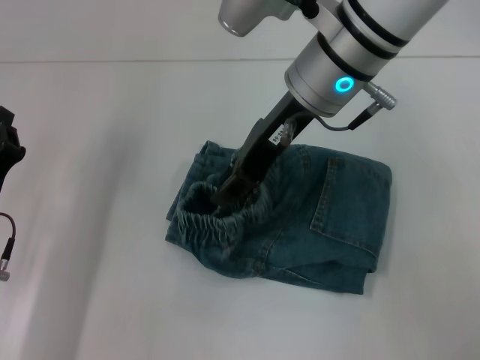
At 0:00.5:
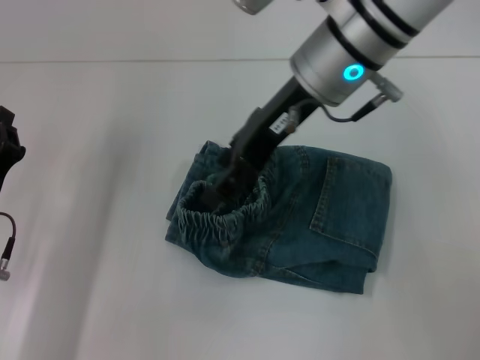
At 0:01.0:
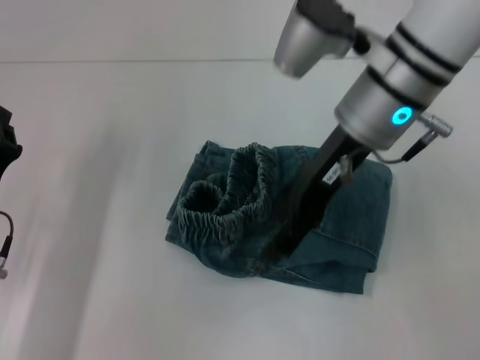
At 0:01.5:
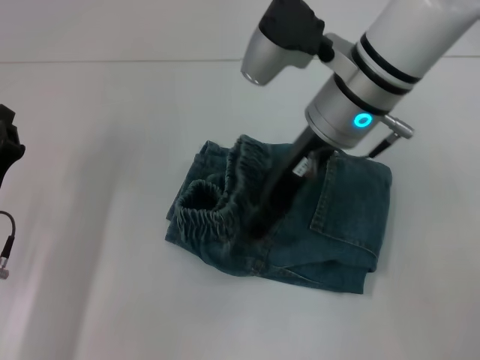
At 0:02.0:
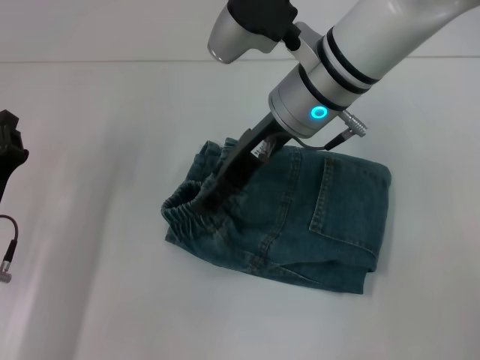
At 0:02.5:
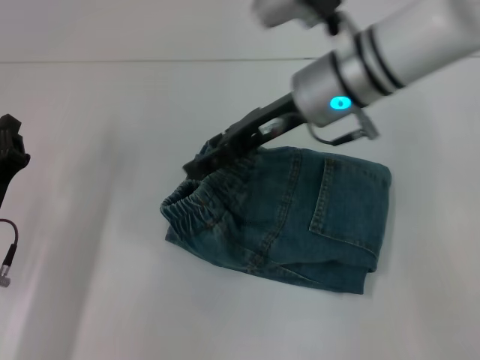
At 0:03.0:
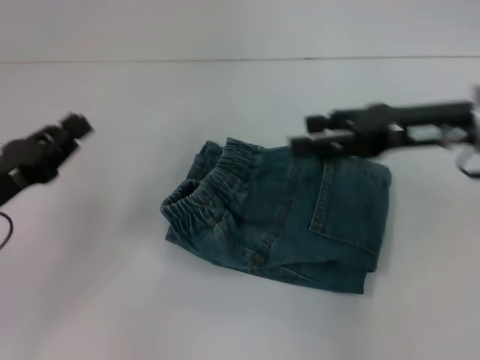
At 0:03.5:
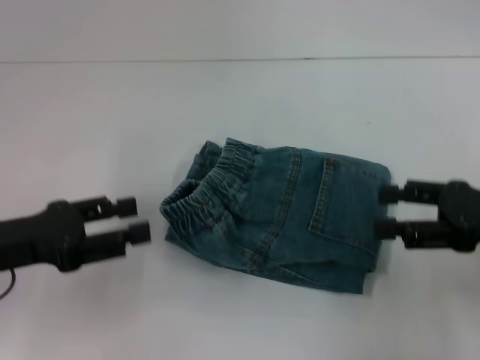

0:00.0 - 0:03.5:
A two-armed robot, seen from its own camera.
Step, 0:00.0 - 0:02.0: Fold to the left with your right hand.
0:00.0 - 0:02.0: The right gripper opens.
0:02.0 - 0:03.5: The left gripper travels upward by about 10 cm, and opens up; the right gripper is displaced to the right and backward by approximately 30 cm.

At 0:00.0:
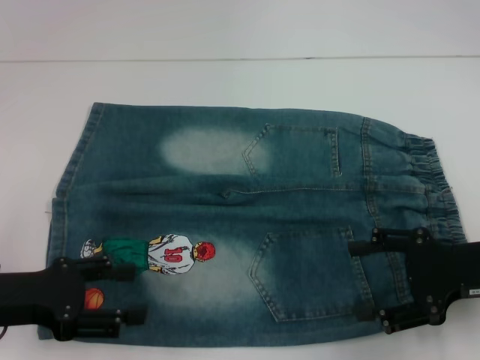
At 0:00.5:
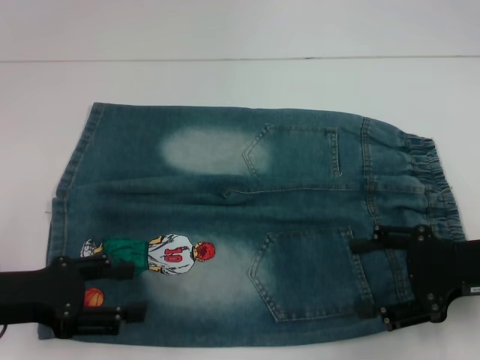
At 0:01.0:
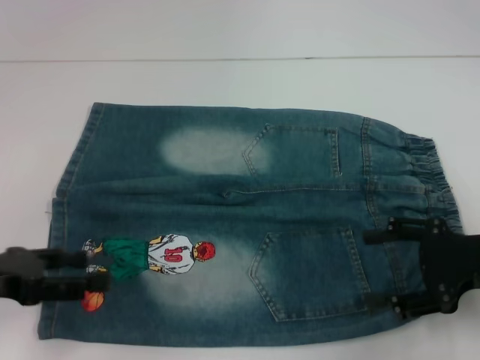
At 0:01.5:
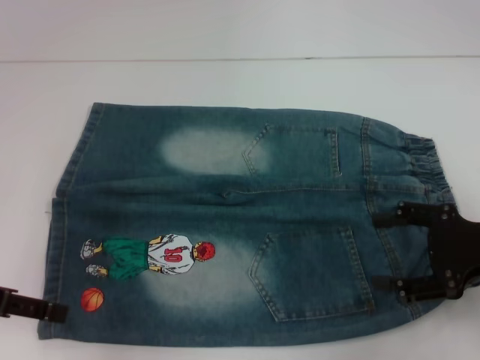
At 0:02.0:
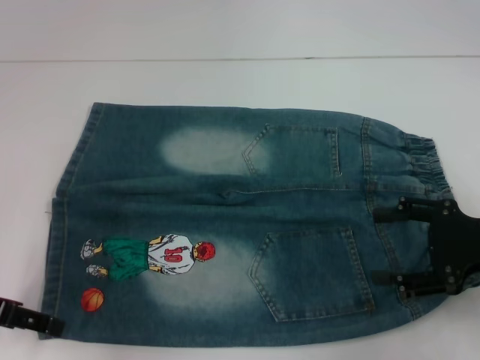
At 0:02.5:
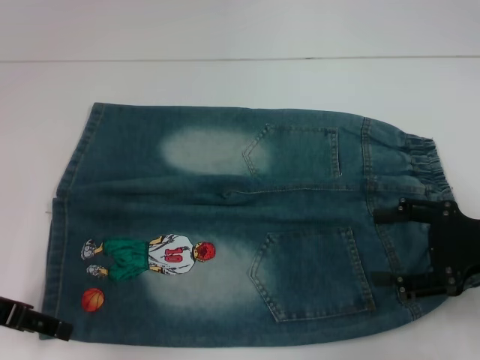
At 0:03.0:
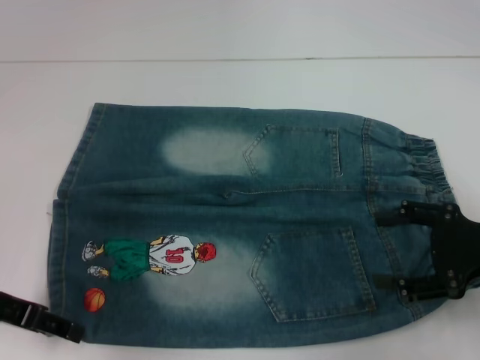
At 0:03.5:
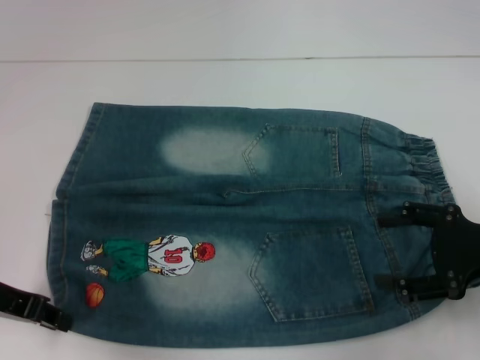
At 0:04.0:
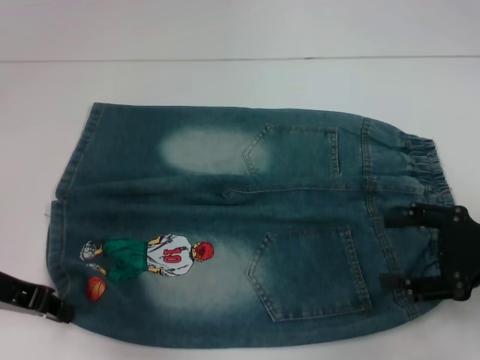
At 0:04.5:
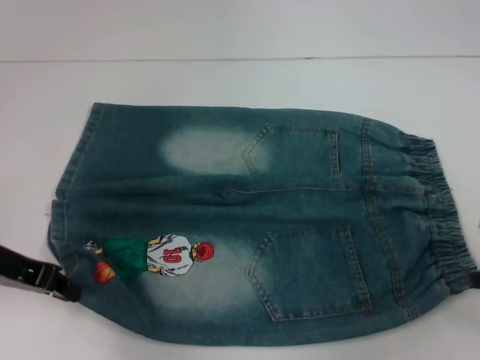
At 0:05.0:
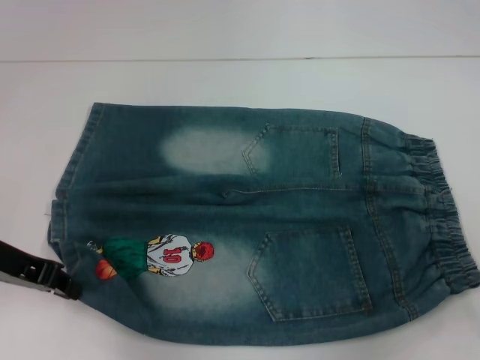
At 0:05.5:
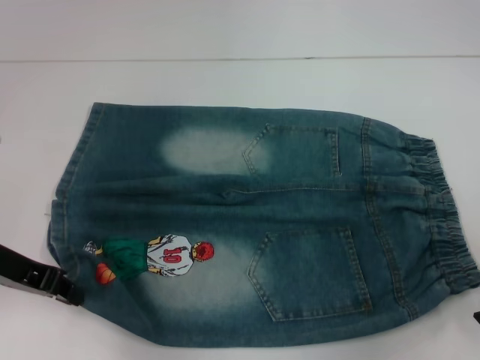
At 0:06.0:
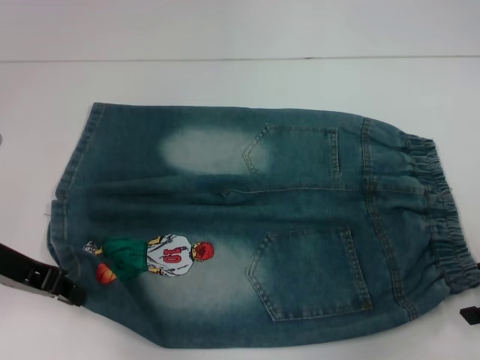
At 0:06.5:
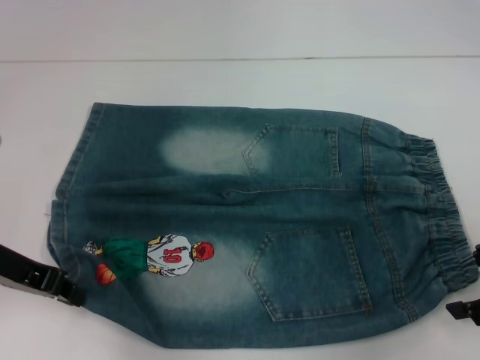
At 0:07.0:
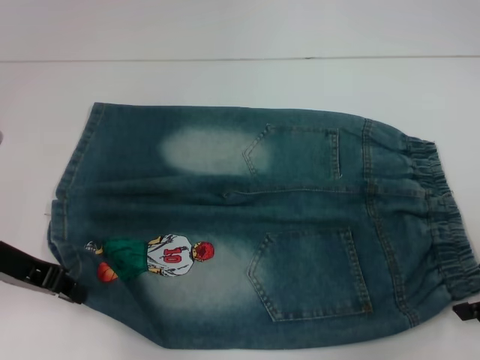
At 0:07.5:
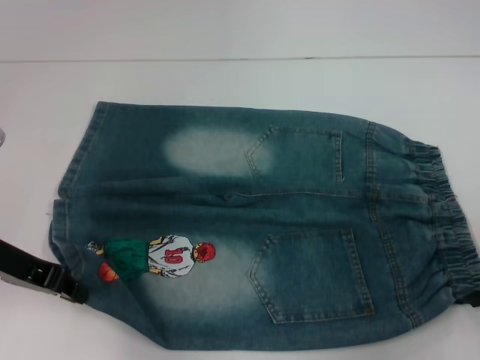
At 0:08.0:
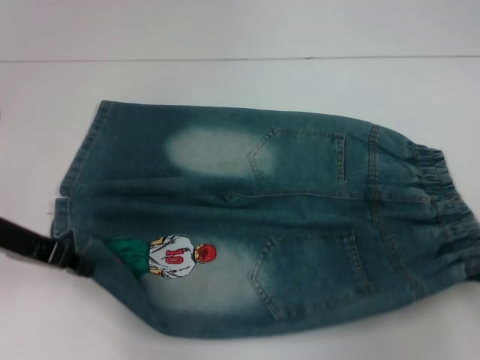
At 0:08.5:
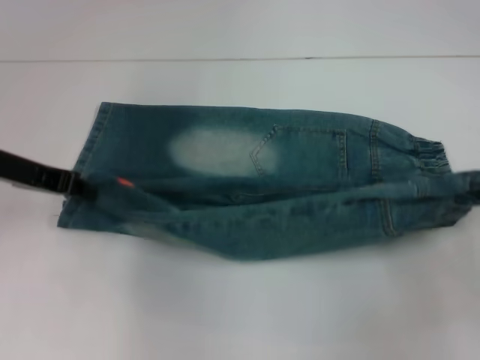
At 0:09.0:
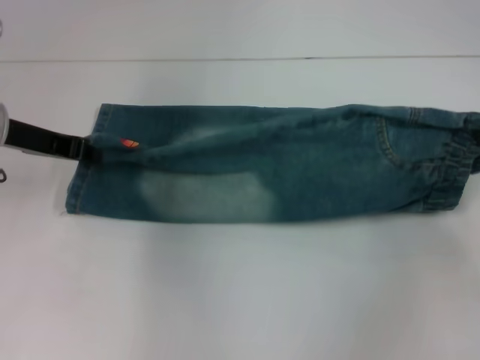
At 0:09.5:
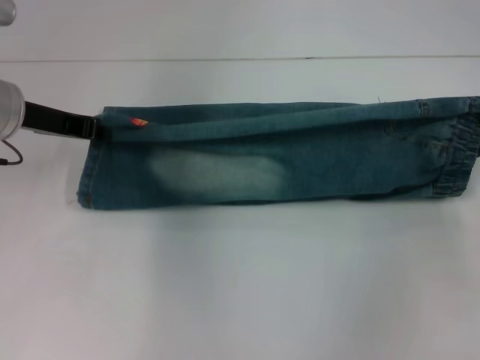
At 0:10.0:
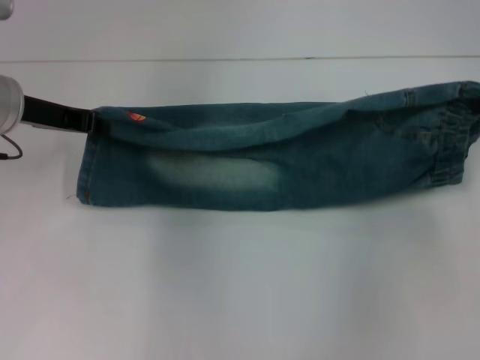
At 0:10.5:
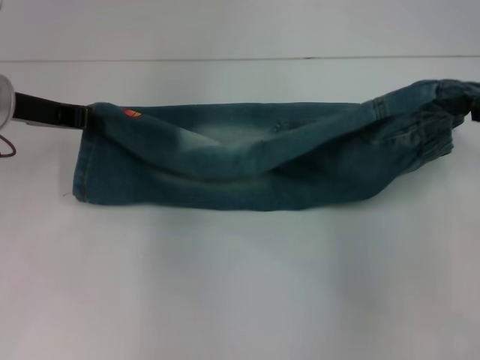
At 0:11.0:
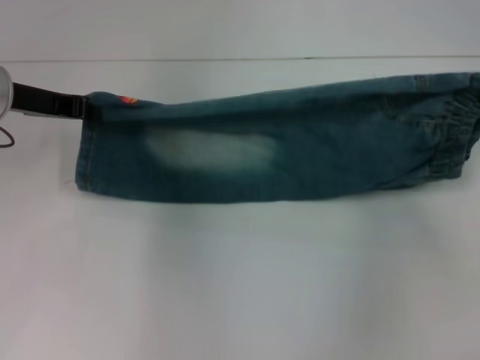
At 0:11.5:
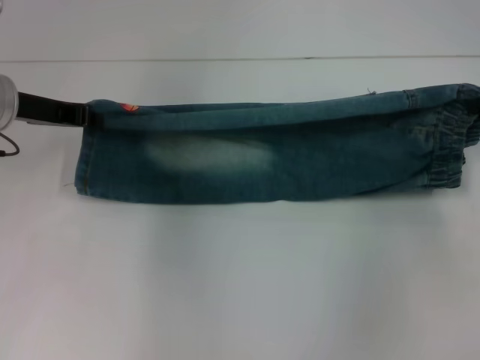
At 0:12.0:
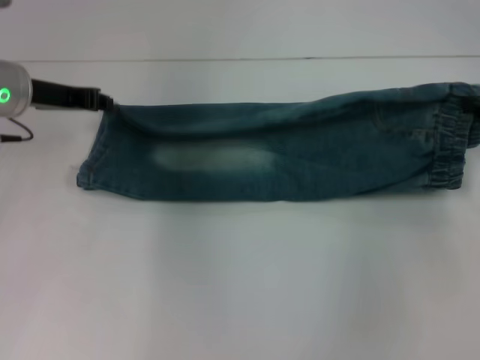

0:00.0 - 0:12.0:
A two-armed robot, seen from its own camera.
Step, 0:00.0 - 0:03.0: Grab the lower left pant leg with your left hand.
Step, 0:03.5 - 0:07.0: Hold the lower right waistband with your right hand.
0:02.0 - 0:04.0: The left gripper closes its fingers.
0:06.0 - 0:08.0: The right gripper closes up.
0:08.0 - 0:10.0: The grippers both shift forward by approximately 10 cm.
0:10.0 - 0:12.0: The grippers stay close to where they were, moving slightly.

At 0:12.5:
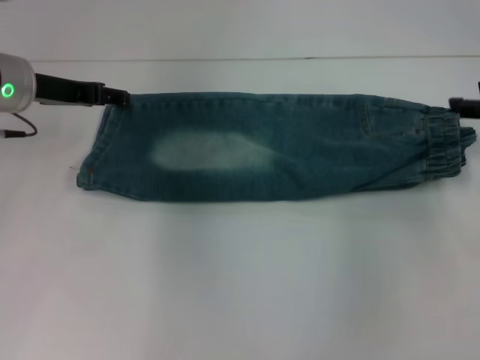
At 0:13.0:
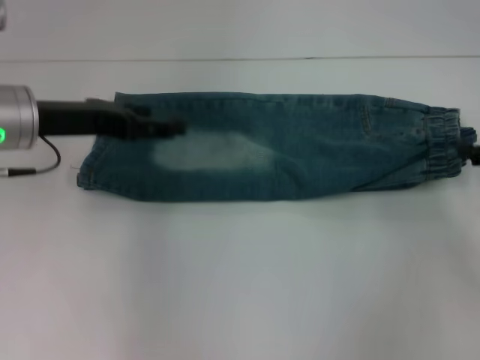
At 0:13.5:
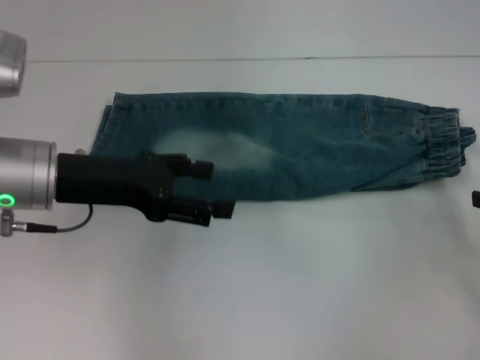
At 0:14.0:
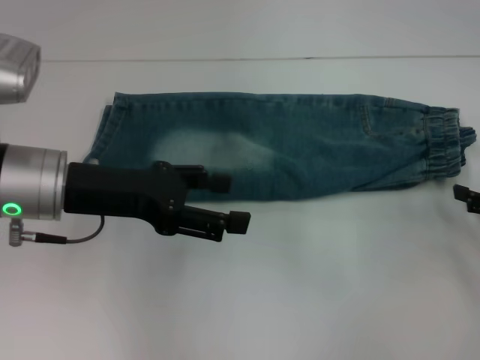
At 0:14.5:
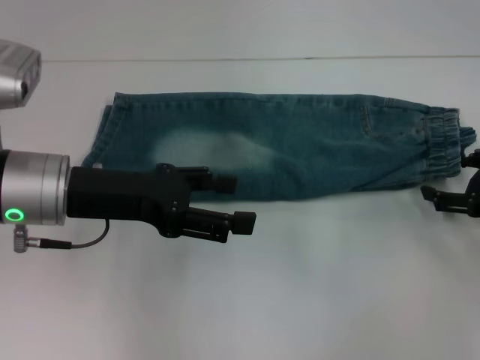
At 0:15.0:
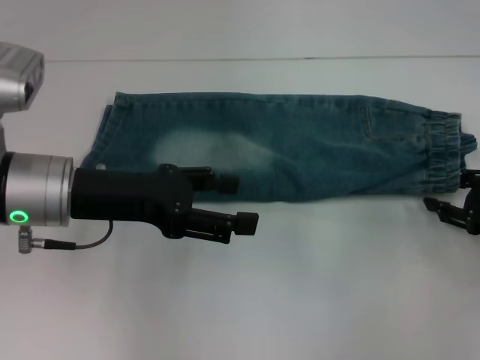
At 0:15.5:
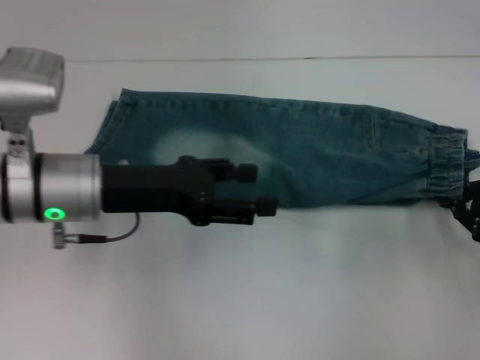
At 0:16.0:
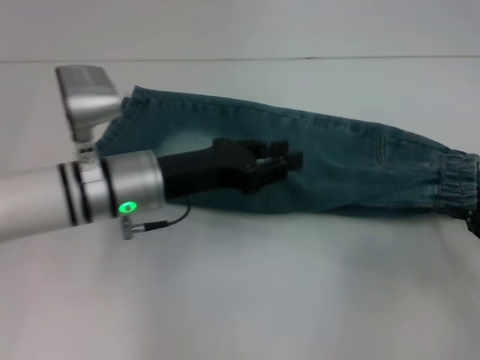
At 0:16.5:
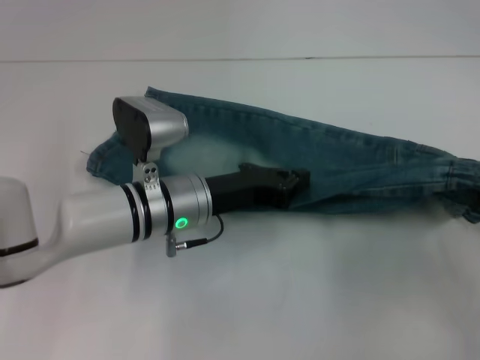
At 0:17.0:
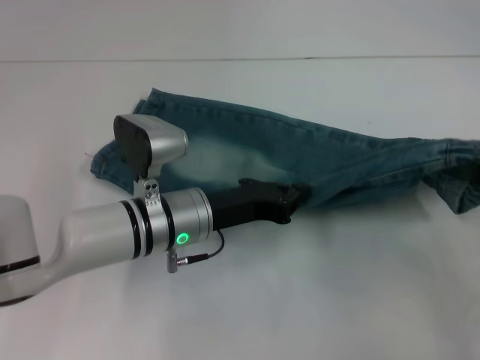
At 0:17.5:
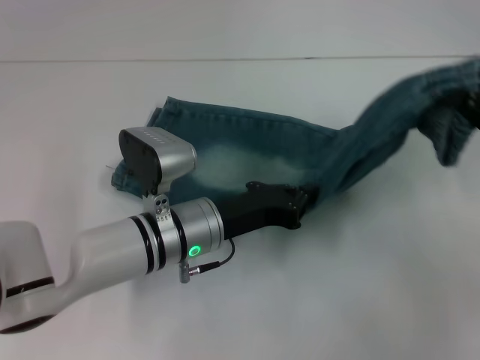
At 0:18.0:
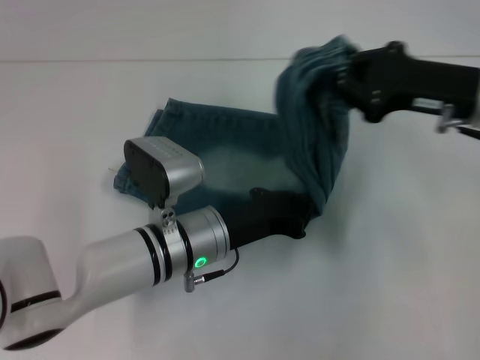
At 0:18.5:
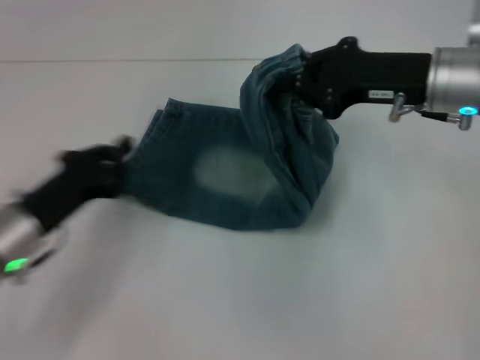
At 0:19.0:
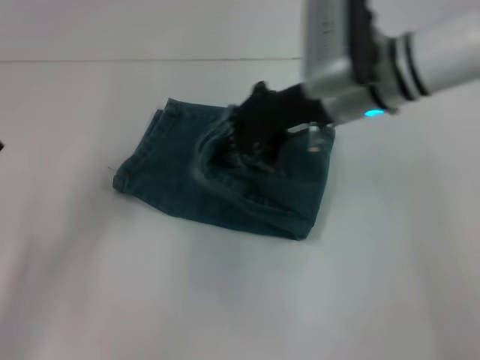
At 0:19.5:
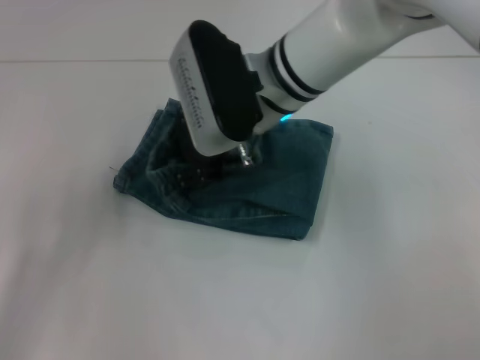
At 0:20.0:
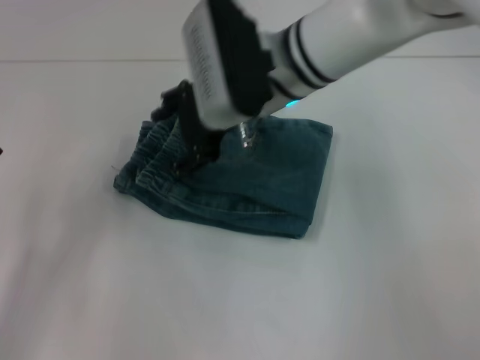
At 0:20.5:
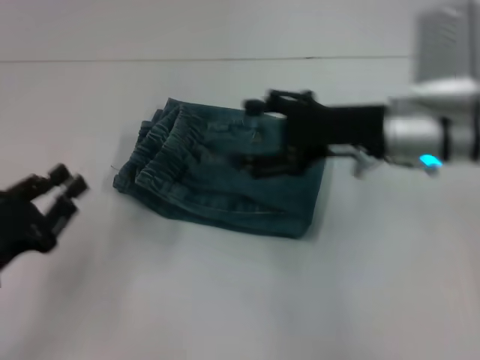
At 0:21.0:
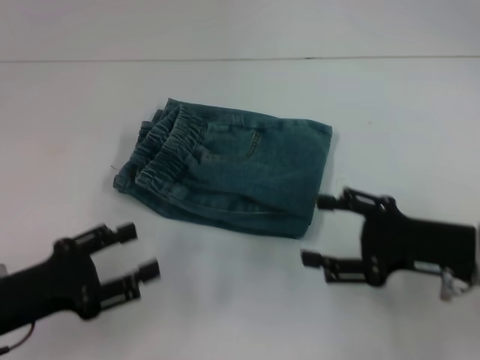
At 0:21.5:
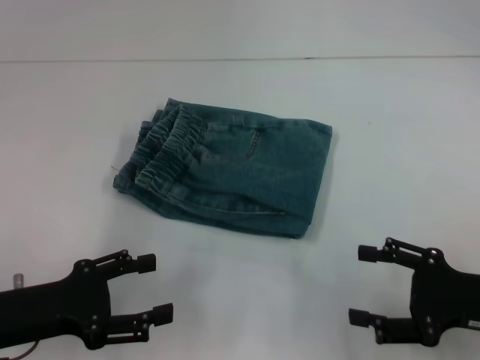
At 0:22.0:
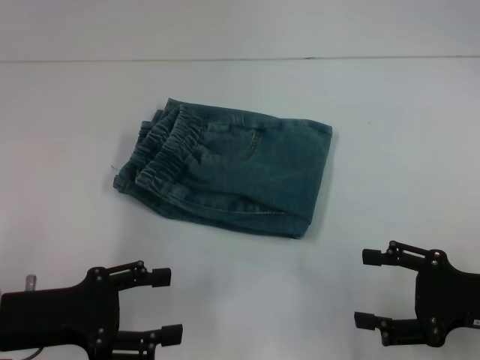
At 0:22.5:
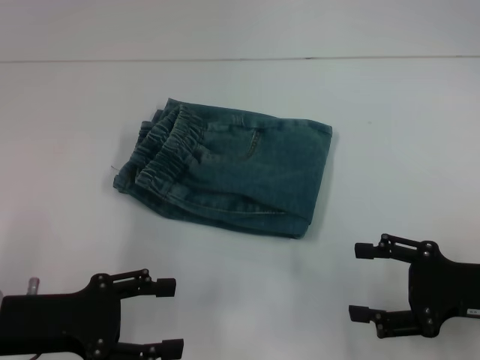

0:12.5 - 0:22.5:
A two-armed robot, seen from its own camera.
Step, 0:12.5 - 0:15.0: Grab the waistband with your right hand.
Step, 0:16.0 - 0:18.0: Press the middle of the pants with your left hand.
Step, 0:18.5 - 0:20.0: Fold to the left with your right hand.
0:12.5 - 0:14.5: The right gripper moves downward and backward, about 10 cm, and opens up, while the left gripper goes roughly 10 cm backward, and opens its fingers.
0:14.5 - 0:16.5: The right gripper shifts approximately 5 cm backward, and closes up; the left gripper goes approximately 15 cm to the right and downward, and closes.
0:16.5 - 0:18.5: The right gripper travels to the left and forward by some 20 cm. The left gripper heads to the left, covering roughly 15 cm.
0:18.5 - 0:20.5: The right gripper goes to the left and returns, roughly 20 cm each way, and opens its fingers; the left gripper goes approximately 10 cm backward and to the left.
0:20.5 - 0:22.5: The right gripper goes some 20 cm backward, to the right and downward; the left gripper opens its fingers.
